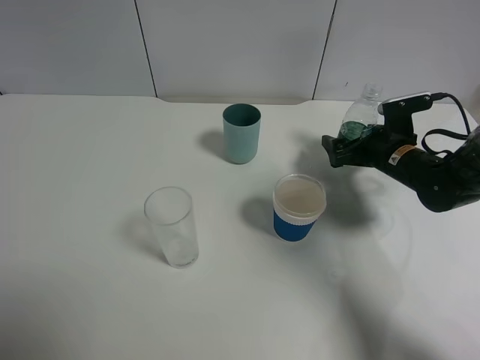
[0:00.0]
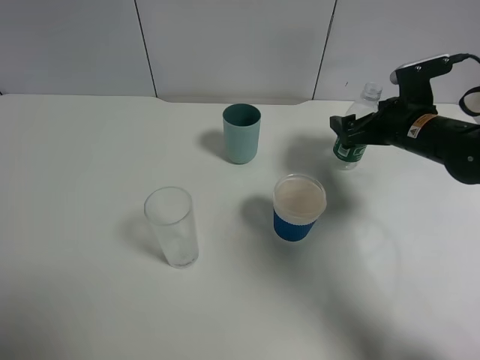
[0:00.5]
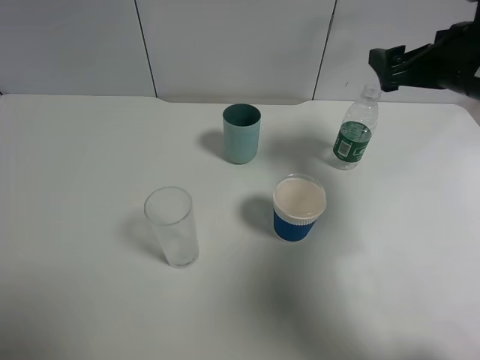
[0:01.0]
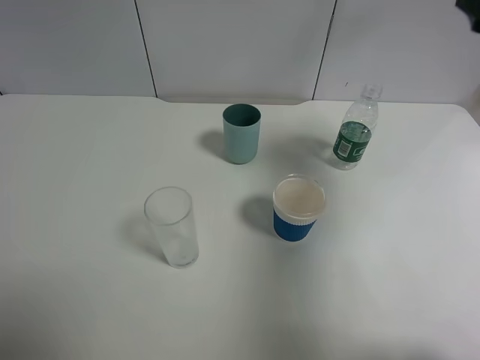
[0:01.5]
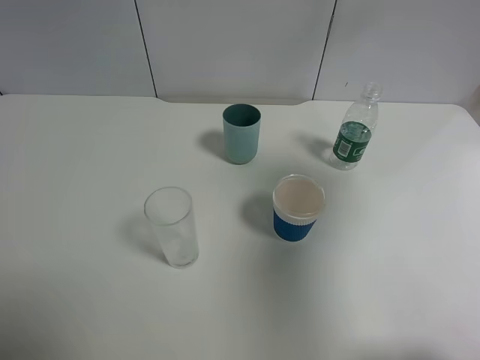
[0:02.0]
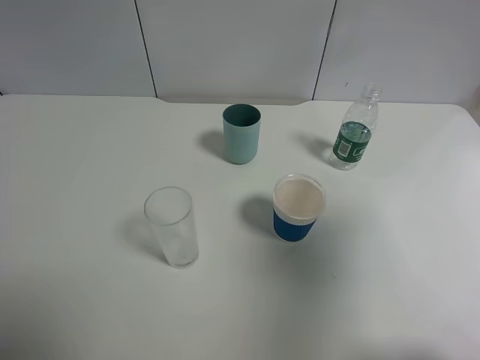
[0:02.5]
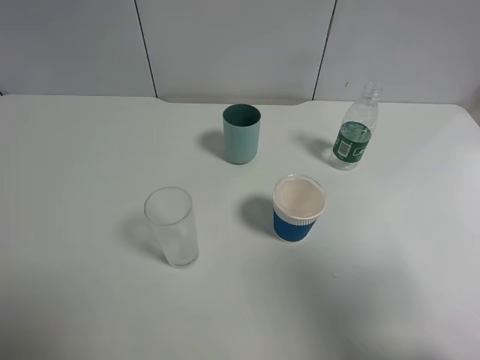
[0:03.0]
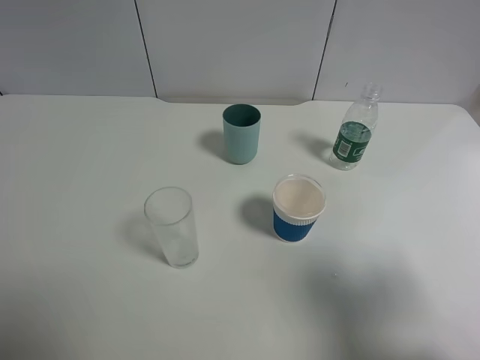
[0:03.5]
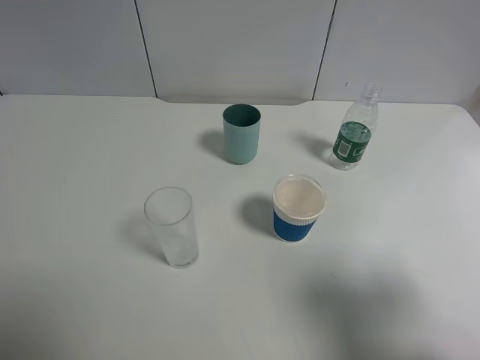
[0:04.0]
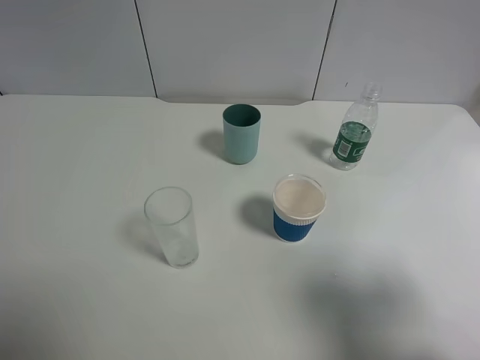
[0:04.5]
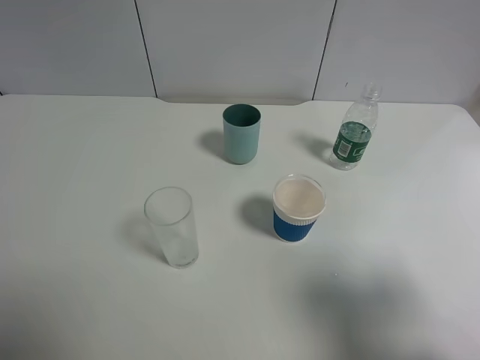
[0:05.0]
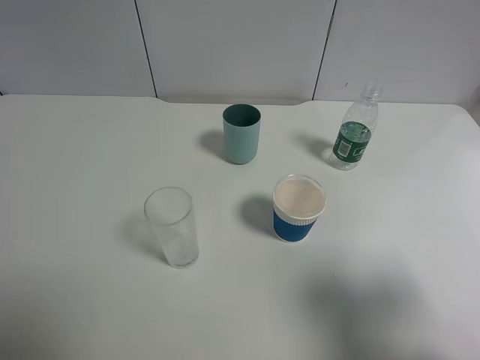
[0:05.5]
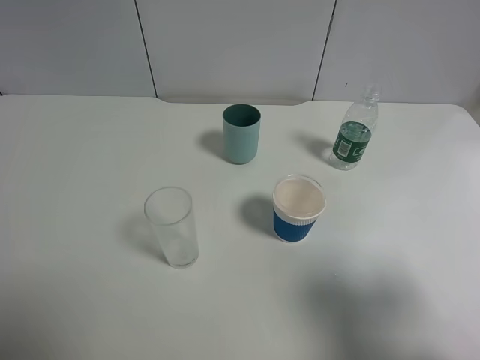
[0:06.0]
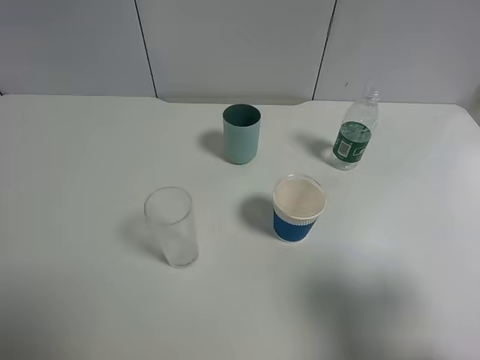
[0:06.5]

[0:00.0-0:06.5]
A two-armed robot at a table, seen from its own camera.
Task of the whole recording: use a gripper to hold the bottle of the drink and pour it into a random cup.
0:00.0 to 0:02.0: The right gripper heads upward and backward, covering approximately 40 cm.
0:02.0 to 0:04.5: The right gripper goes about 20 cm downward and backward.
0:04.5 to 0:06.5: The two grippers keep their place.
